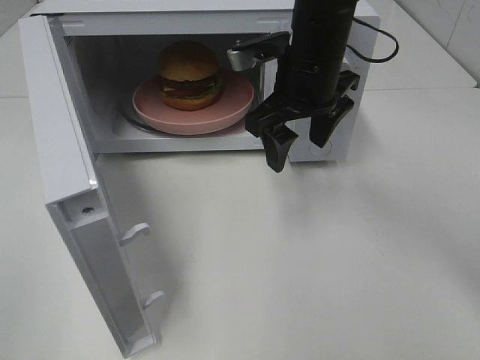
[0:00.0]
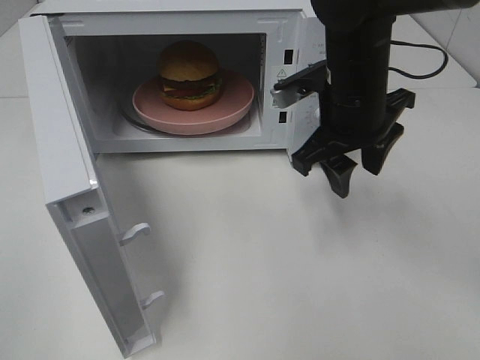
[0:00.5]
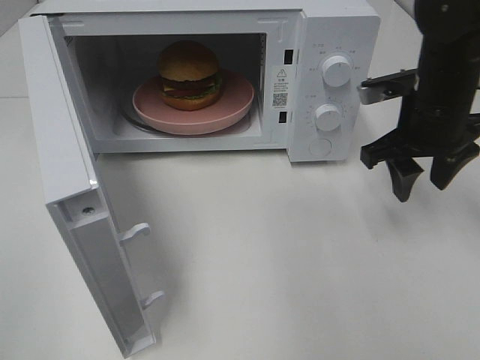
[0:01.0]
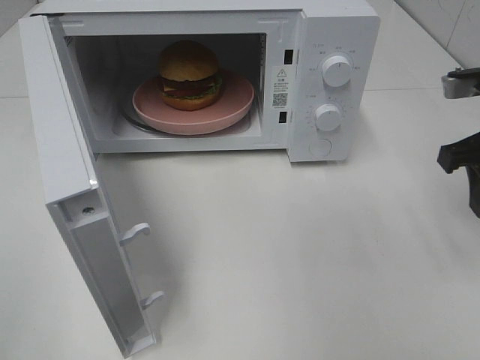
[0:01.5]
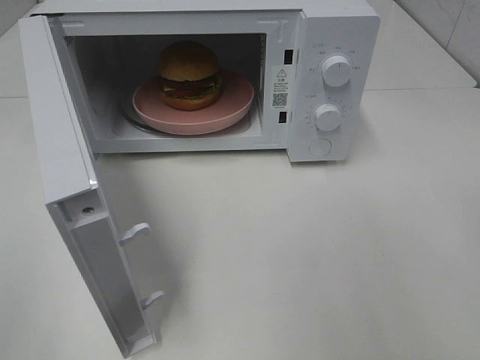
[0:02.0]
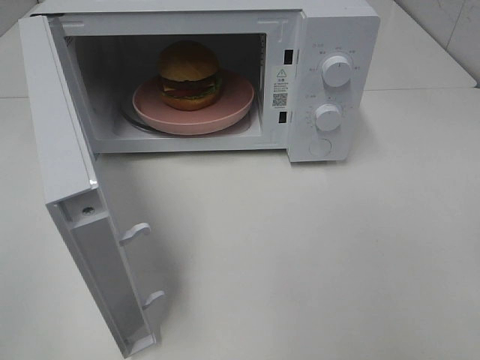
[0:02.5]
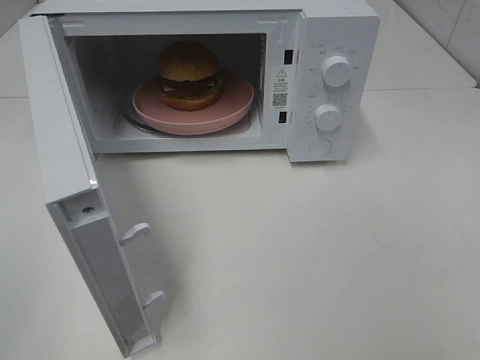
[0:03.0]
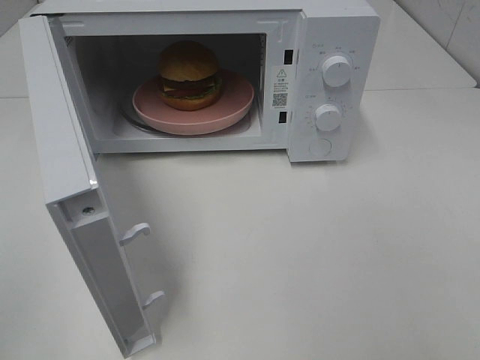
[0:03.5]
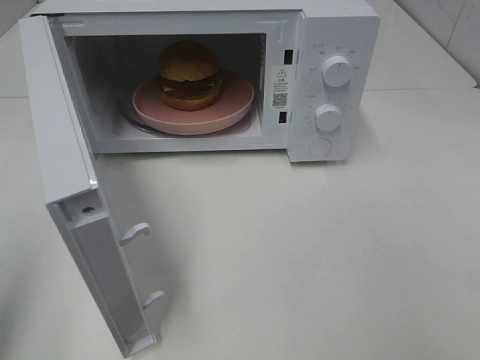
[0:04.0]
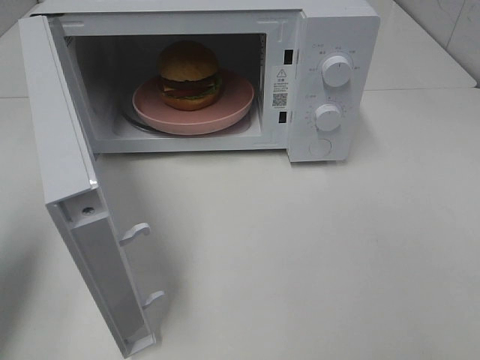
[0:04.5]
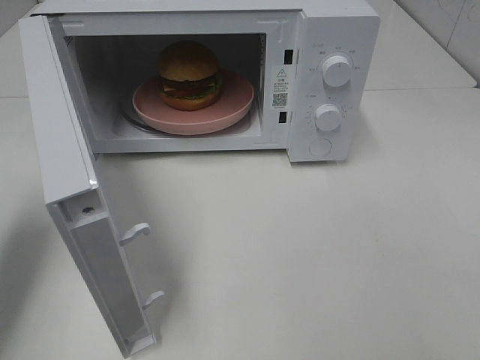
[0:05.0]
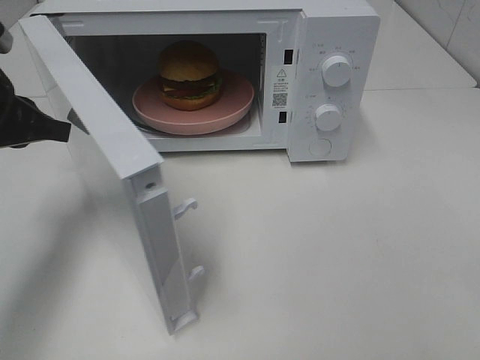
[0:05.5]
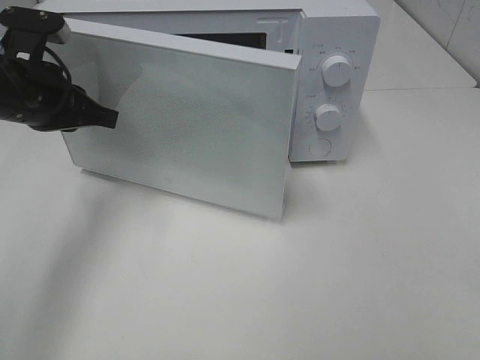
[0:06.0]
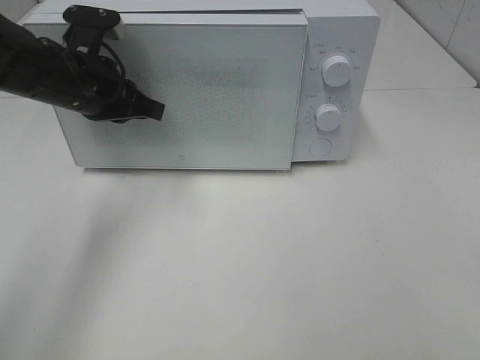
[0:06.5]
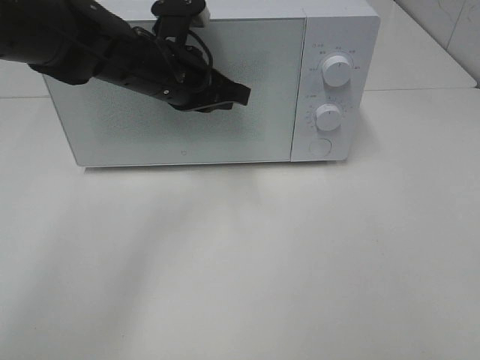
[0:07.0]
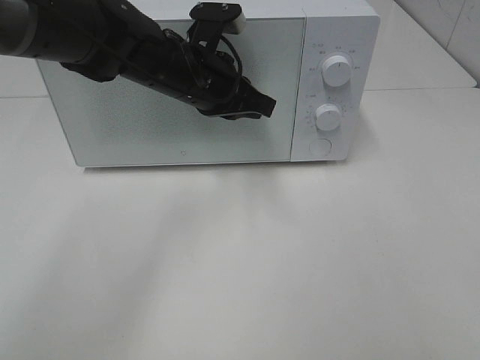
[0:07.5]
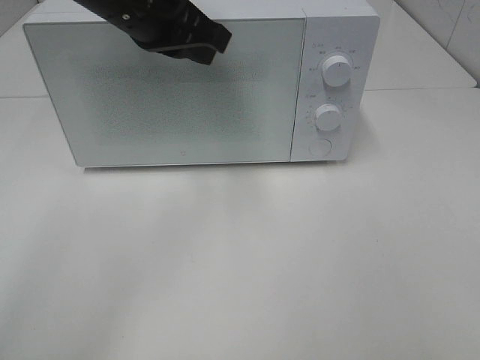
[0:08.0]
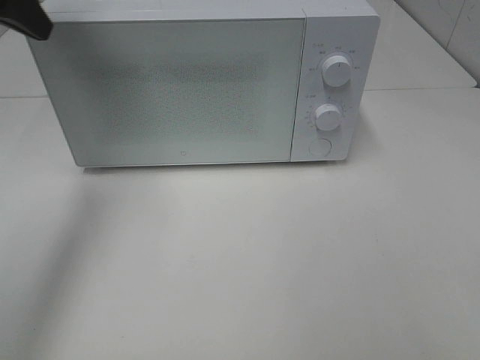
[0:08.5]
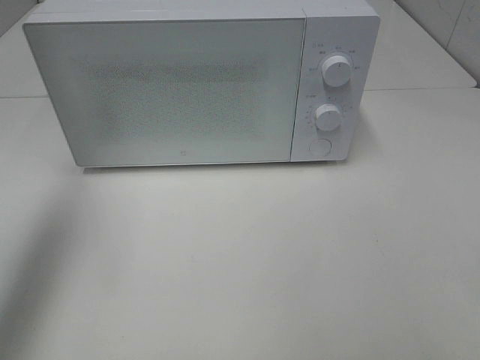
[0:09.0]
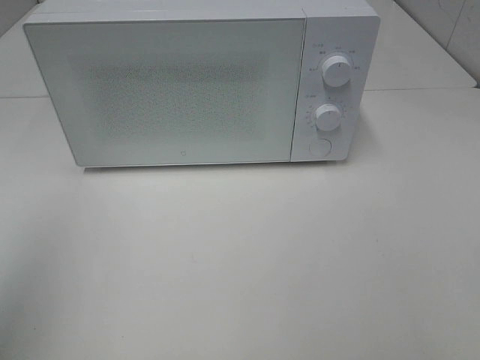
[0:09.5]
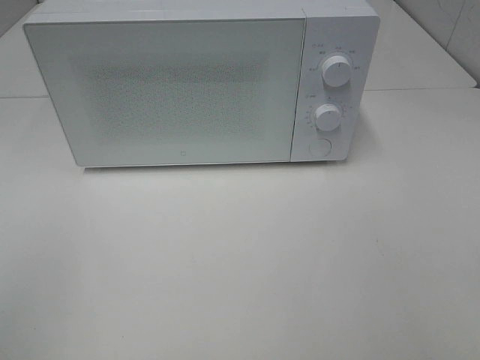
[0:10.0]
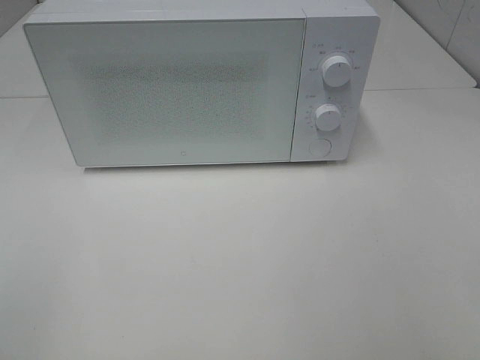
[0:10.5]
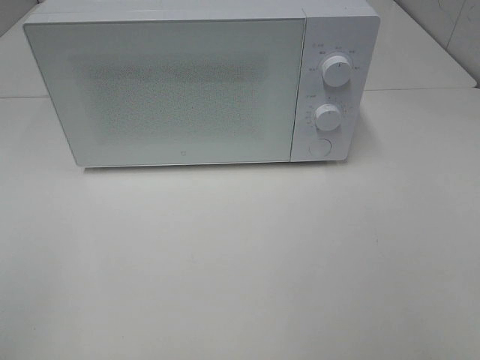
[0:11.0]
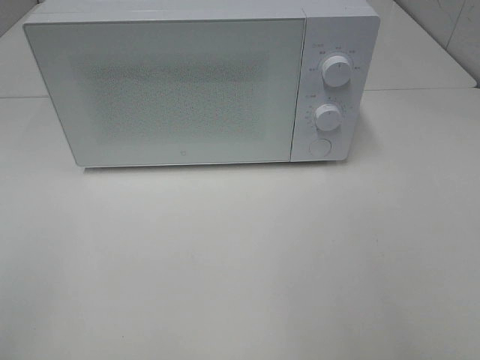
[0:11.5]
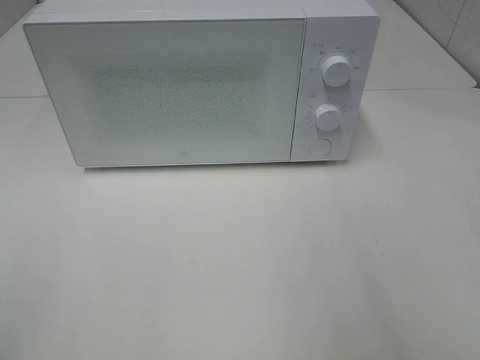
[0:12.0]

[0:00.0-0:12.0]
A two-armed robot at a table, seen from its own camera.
Task of the whole recording: Heat the burger.
Step, 0:00.0 to 0:07.0: Left hand: close the microwave door.
0:00.0 to 0:02.0: The right gripper shifts about 30 cm to the right and backward.
0:04.0 to 0:06.0: The left gripper goes roughly 30 cm forward, to the right and downward.
0:06.0 to 0:08.0: The left gripper moves to the right and upward, about 15 cm.
0:08.0 to 0:10.0: The left gripper moves backward and to the left, roughly 40 cm.

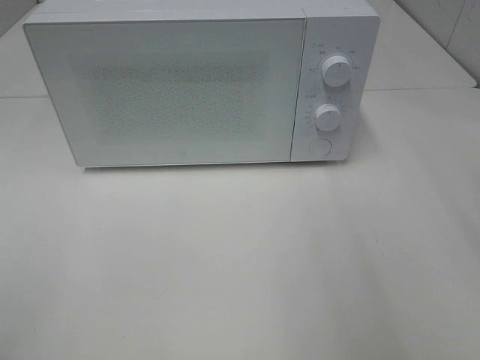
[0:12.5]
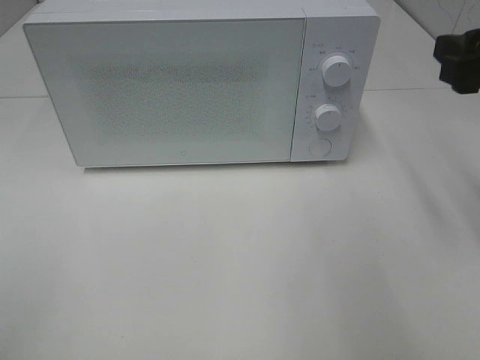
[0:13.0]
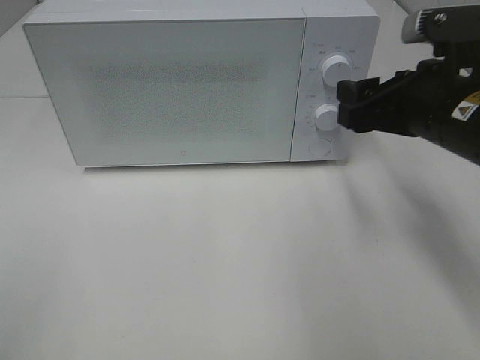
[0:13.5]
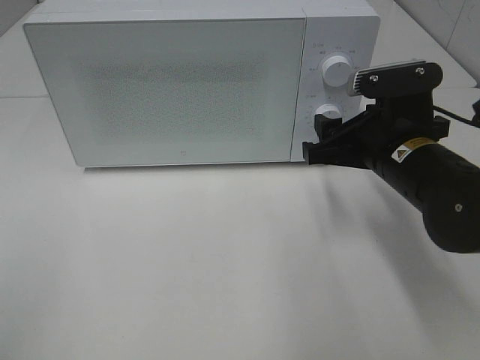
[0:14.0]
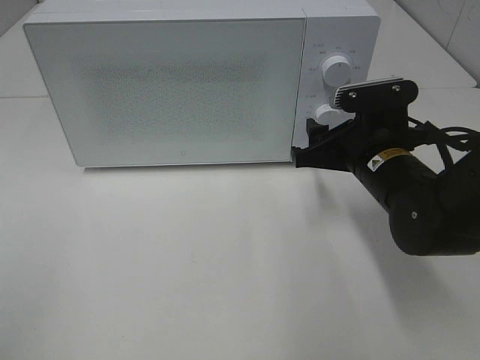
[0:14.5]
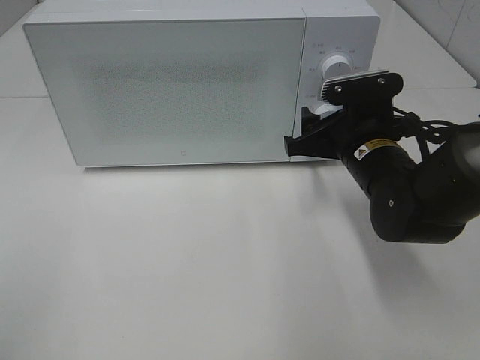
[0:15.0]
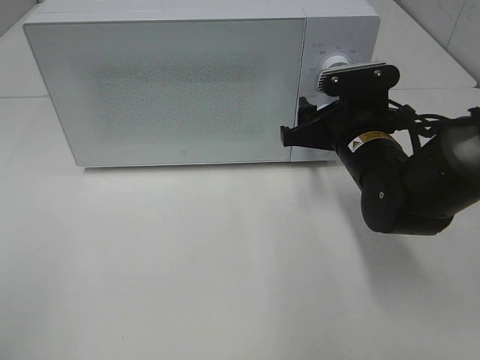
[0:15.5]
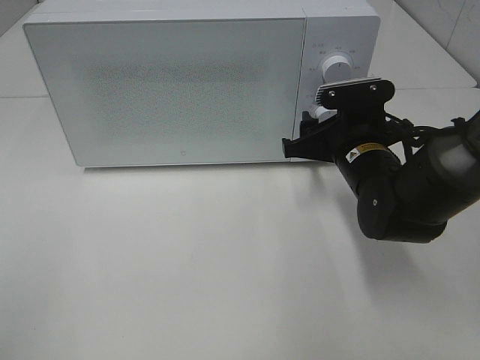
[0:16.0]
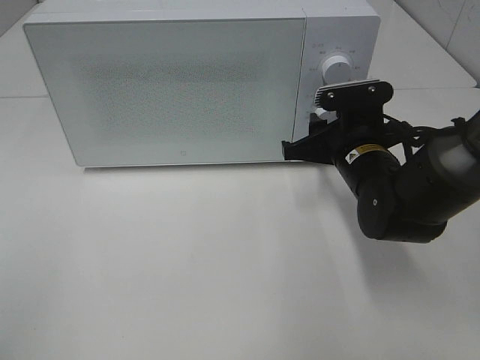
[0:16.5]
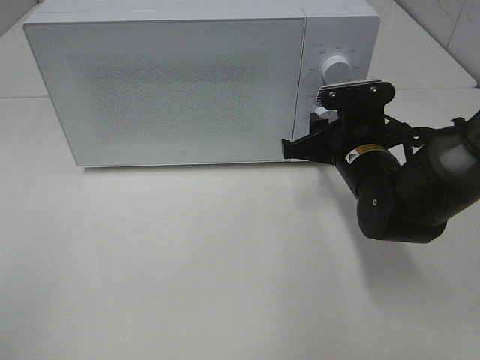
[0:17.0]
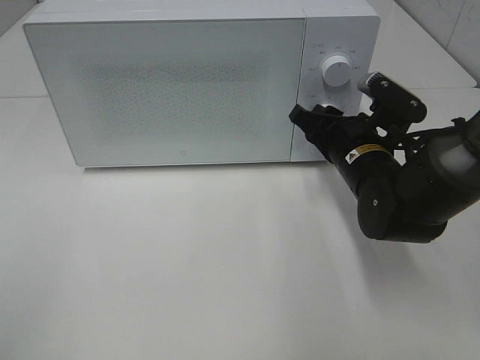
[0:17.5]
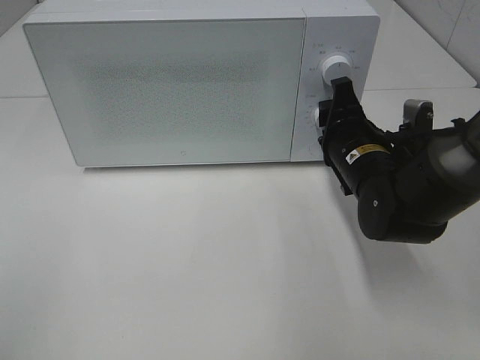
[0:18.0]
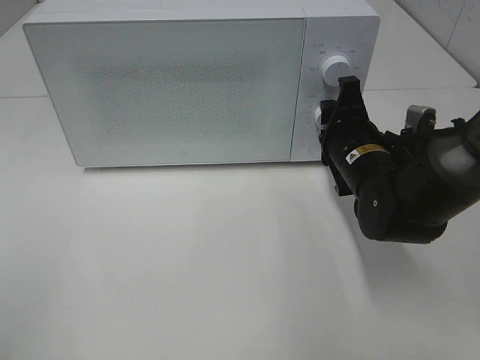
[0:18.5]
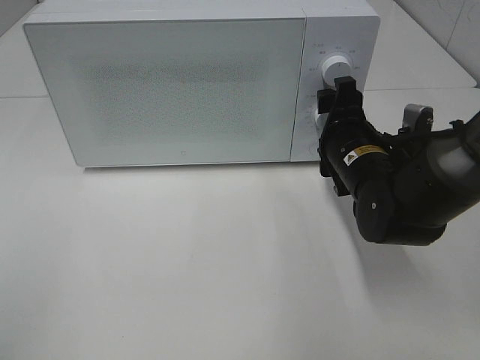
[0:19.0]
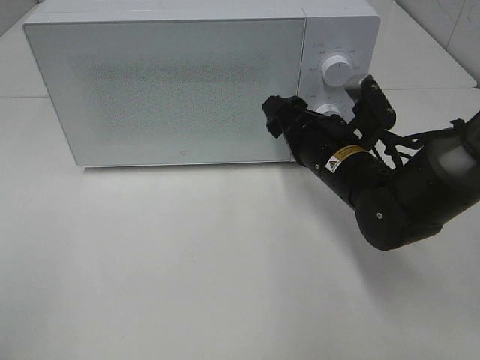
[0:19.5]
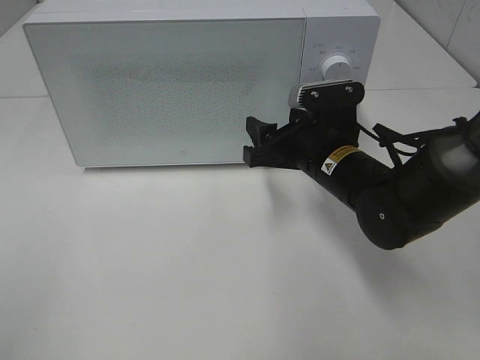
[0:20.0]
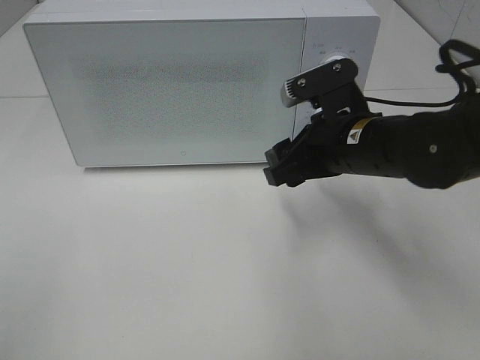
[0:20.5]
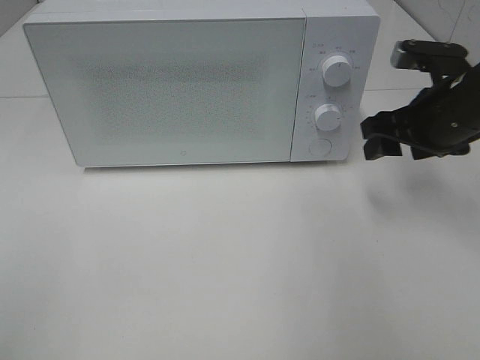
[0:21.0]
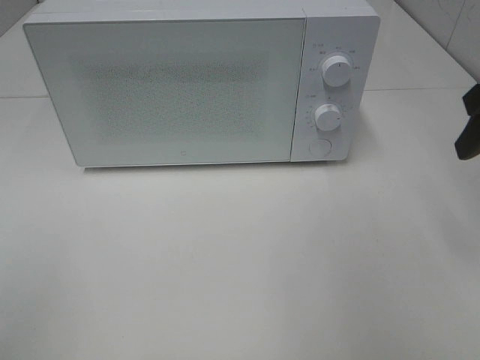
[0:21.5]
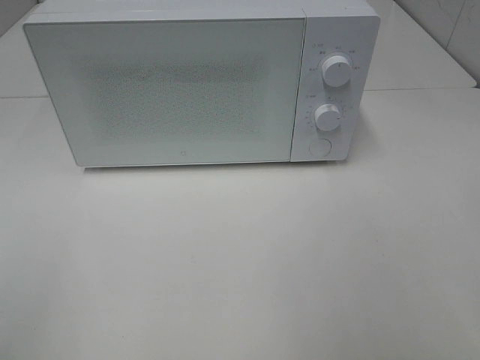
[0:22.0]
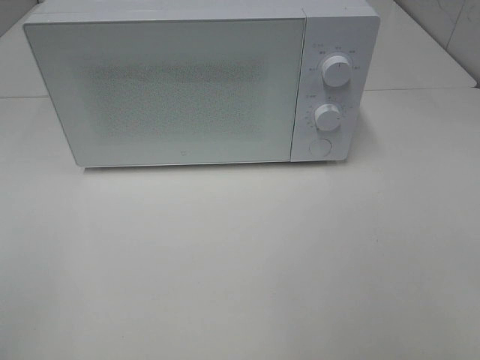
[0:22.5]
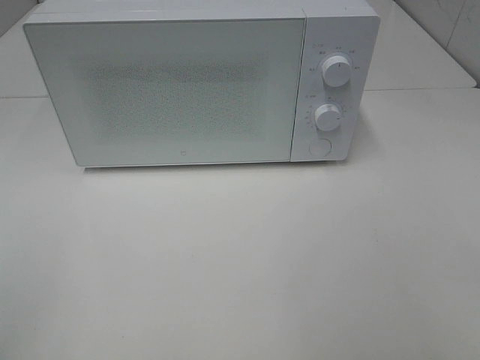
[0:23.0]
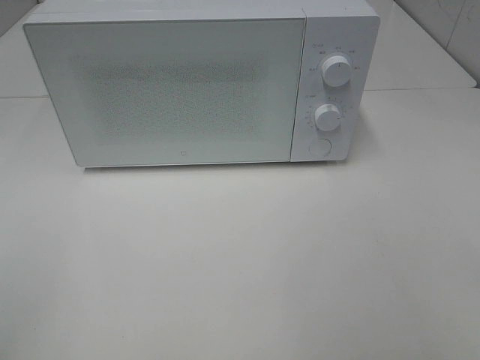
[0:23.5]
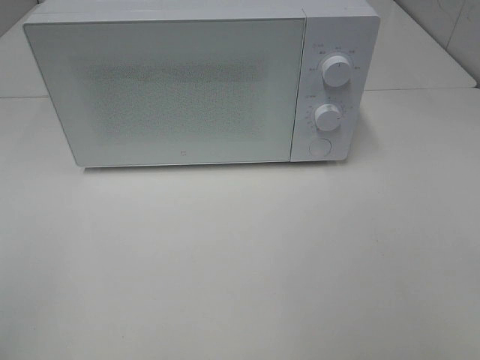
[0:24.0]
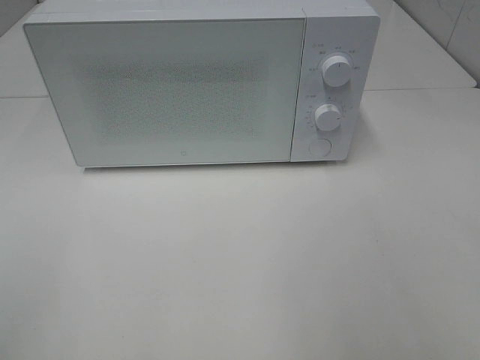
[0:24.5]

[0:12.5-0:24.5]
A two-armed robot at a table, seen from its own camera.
Task of the whole recording: Heat the burger.
Step, 0:12.5 to 0:18.5: Right hand: twist timer button.
0:12.5 to 0:14.5: The right gripper moves downward, forward and to the left, approximately 25 cm.
0:14.5 to 0:16.5: The grippers move only a little.
0:18.5 to 0:20.5: The right gripper ends up about 5 cm from where it was.
0:20.5 to 0:22.5: The right gripper heads backward, to the right and upward, covering approximately 30 cm.

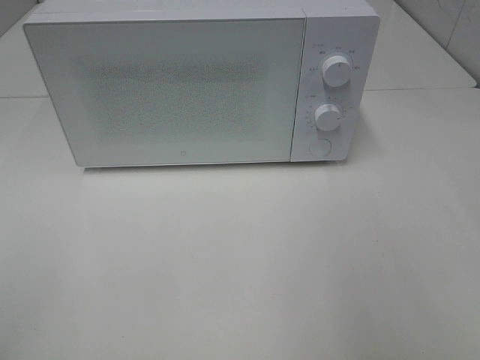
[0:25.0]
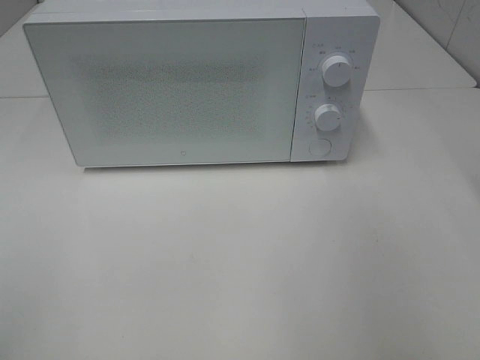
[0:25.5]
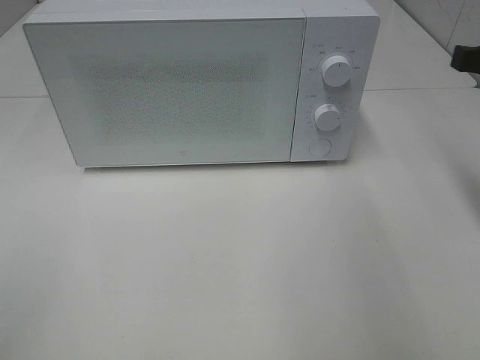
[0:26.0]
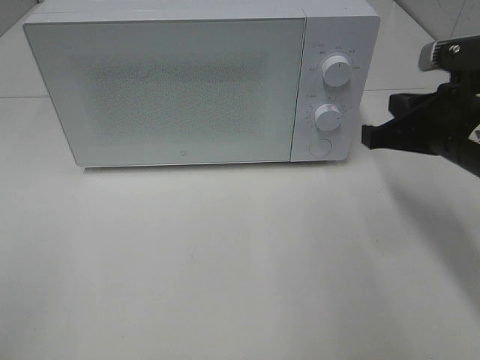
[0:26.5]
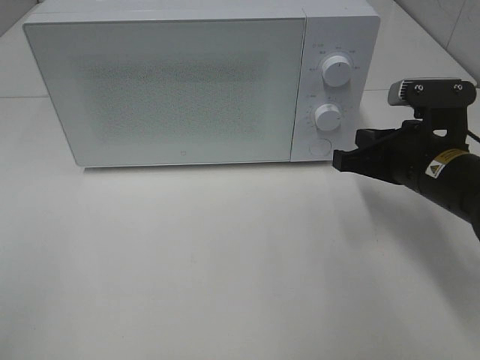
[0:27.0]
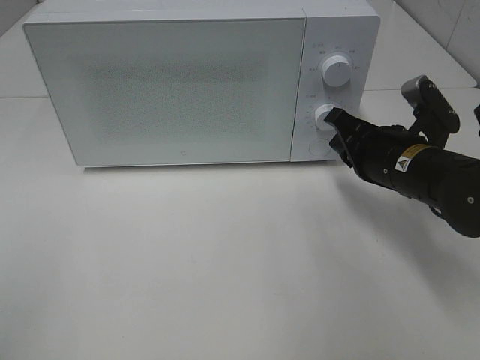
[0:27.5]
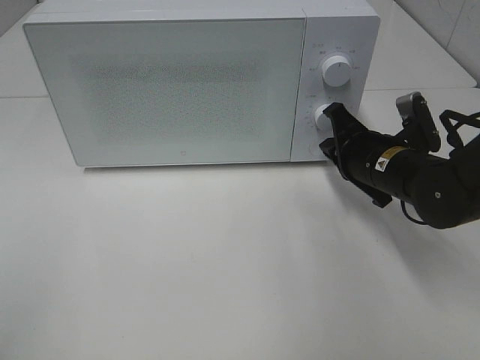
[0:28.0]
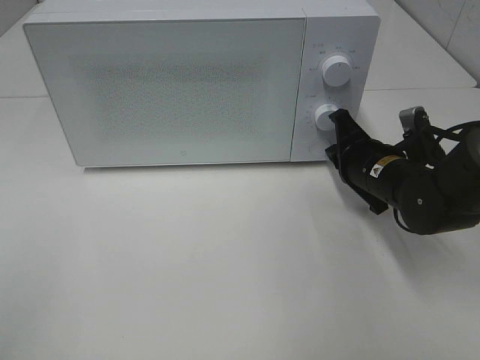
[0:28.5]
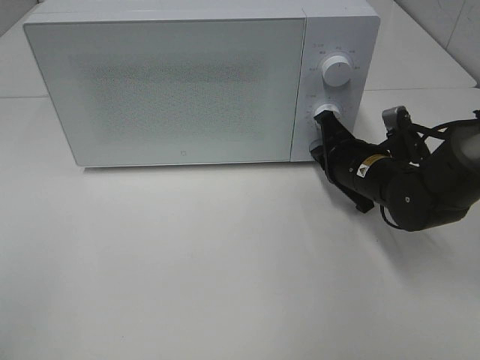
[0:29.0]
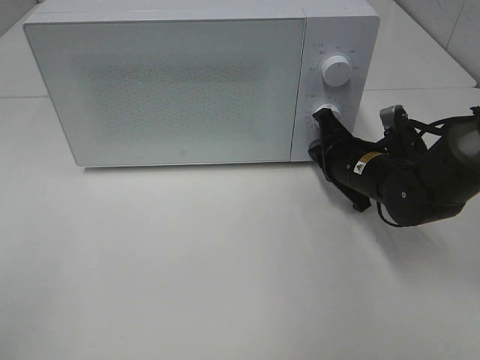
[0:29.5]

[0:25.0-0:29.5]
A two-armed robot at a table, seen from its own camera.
Task of the whole recording: Heat the burger.
0:25.0 to 0:27.0: The right gripper travels downward, forward and to the left by some 25 cm, and closes its fingers.
0:27.0 to 0:29.5: The right gripper heads forward and downward, covering about 10 cm.
